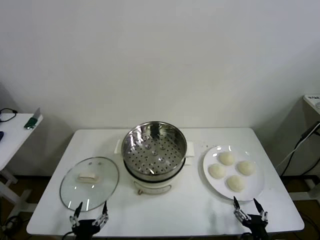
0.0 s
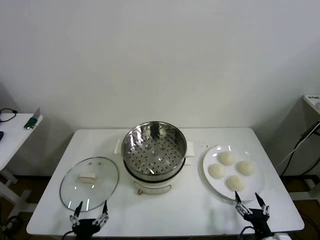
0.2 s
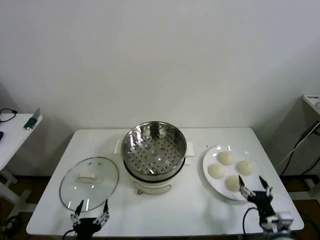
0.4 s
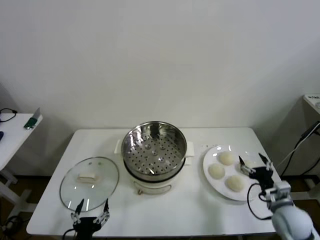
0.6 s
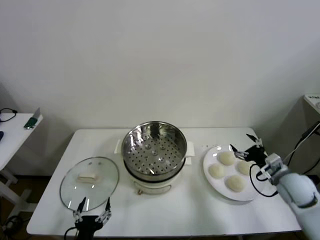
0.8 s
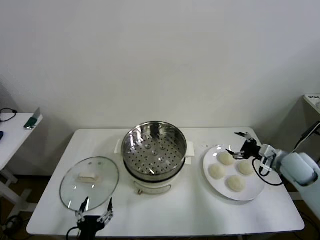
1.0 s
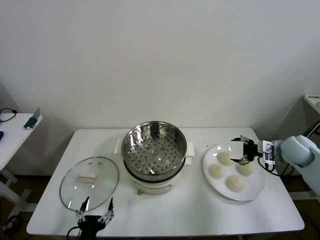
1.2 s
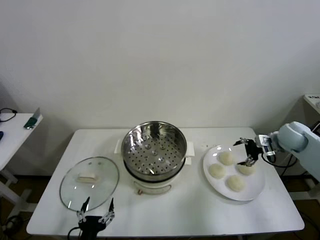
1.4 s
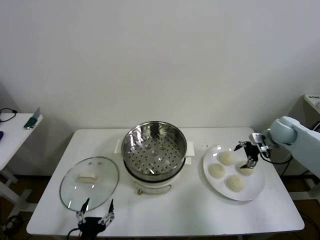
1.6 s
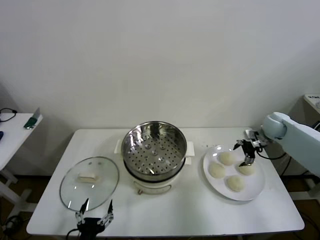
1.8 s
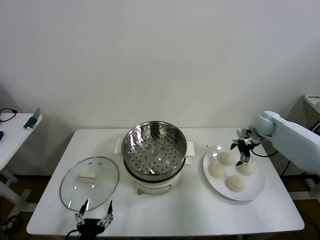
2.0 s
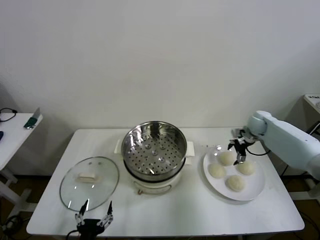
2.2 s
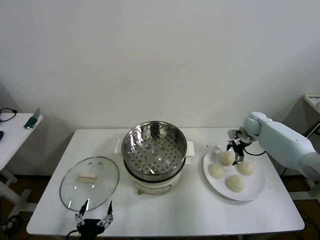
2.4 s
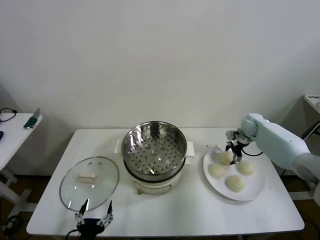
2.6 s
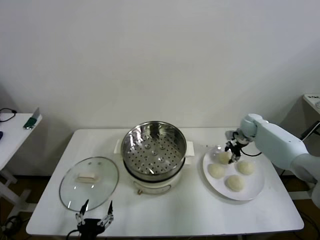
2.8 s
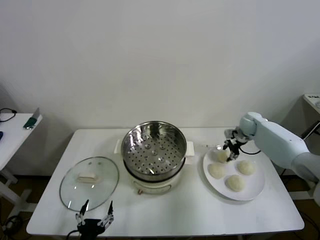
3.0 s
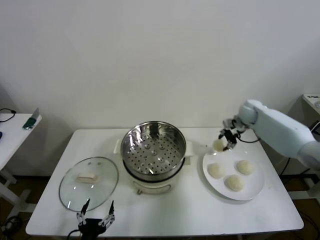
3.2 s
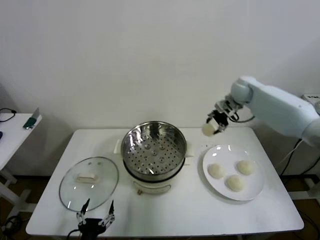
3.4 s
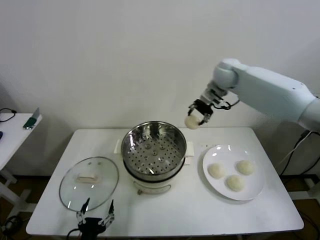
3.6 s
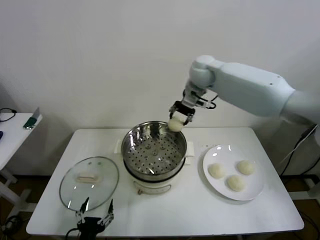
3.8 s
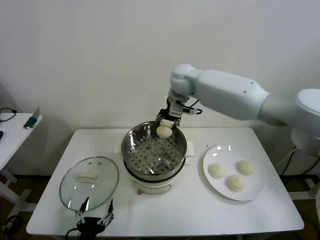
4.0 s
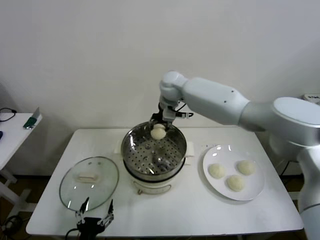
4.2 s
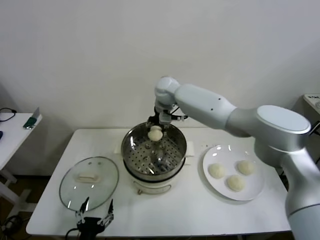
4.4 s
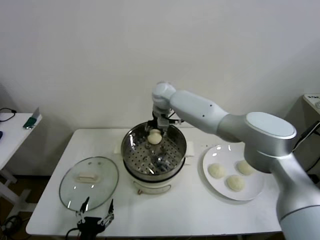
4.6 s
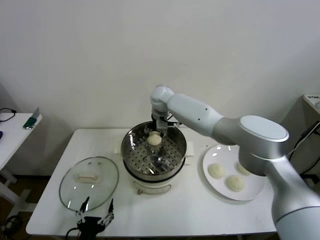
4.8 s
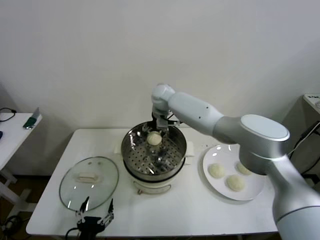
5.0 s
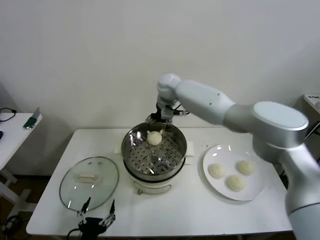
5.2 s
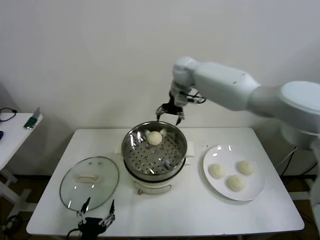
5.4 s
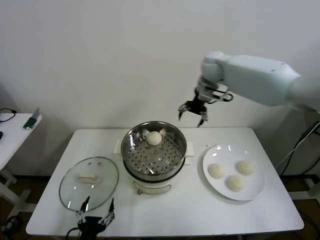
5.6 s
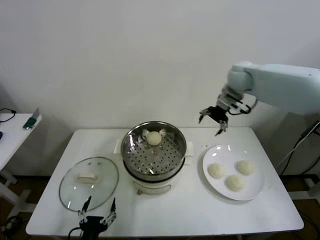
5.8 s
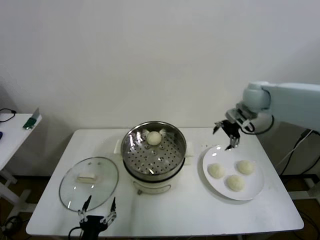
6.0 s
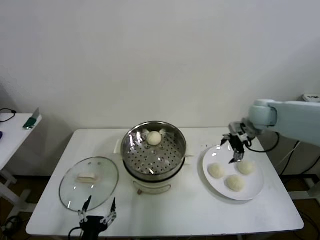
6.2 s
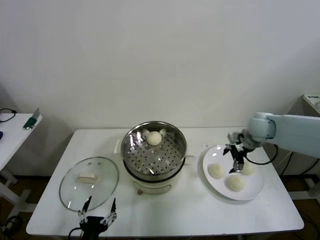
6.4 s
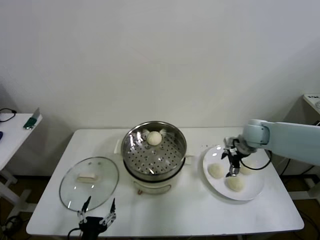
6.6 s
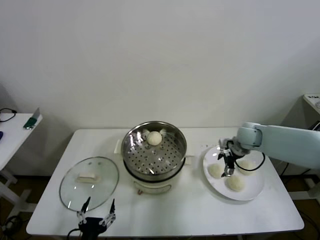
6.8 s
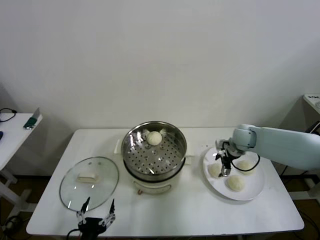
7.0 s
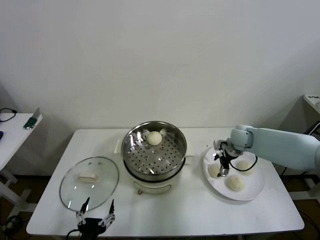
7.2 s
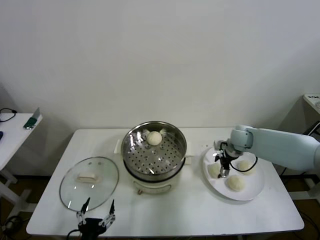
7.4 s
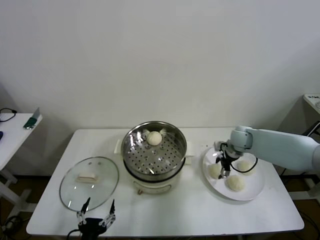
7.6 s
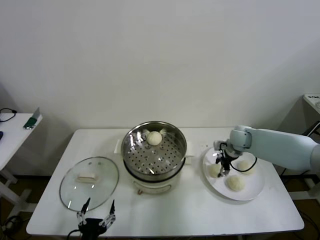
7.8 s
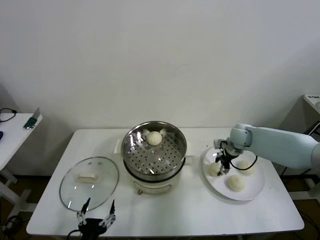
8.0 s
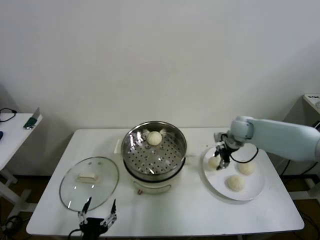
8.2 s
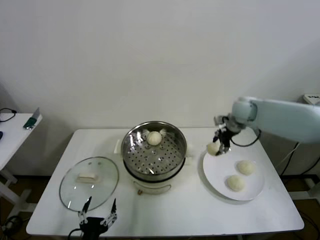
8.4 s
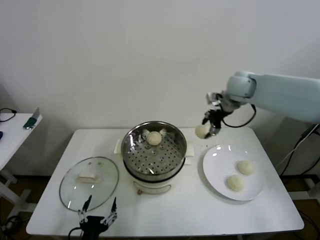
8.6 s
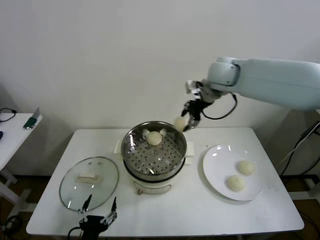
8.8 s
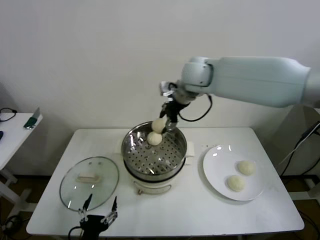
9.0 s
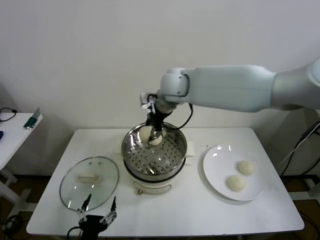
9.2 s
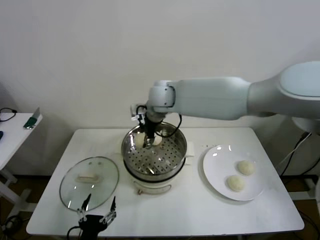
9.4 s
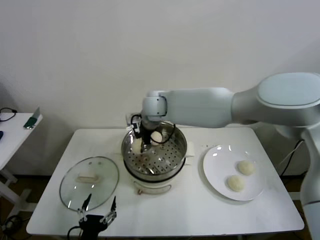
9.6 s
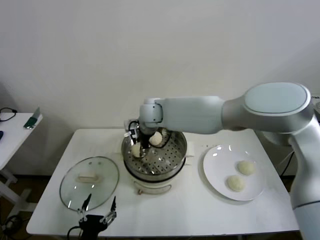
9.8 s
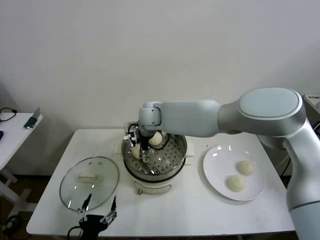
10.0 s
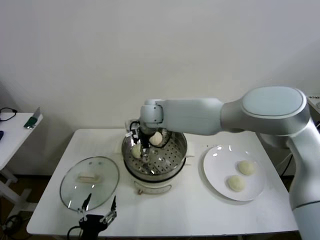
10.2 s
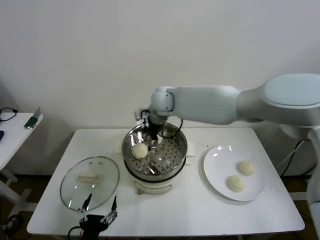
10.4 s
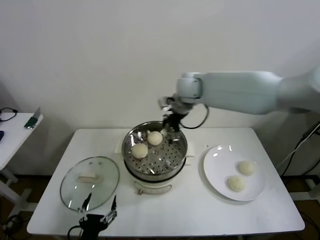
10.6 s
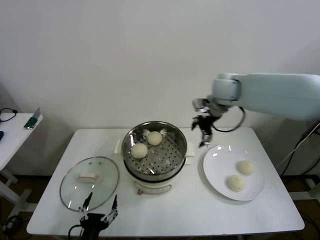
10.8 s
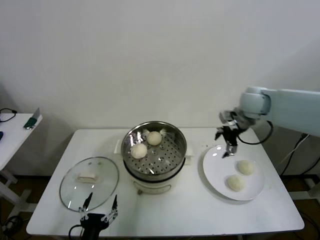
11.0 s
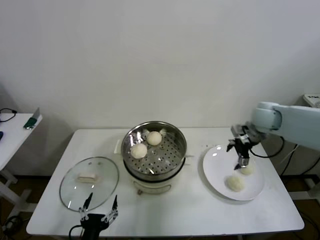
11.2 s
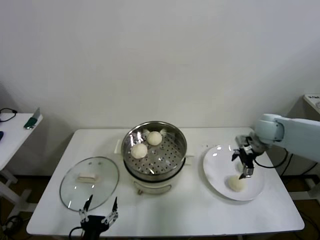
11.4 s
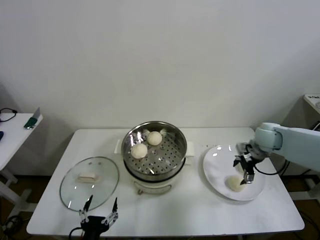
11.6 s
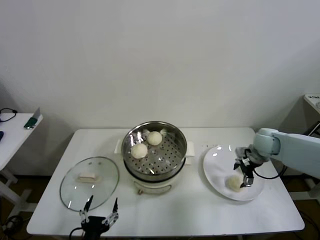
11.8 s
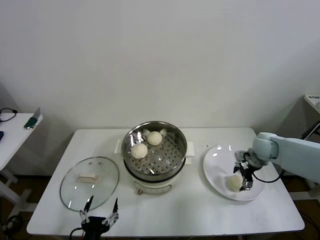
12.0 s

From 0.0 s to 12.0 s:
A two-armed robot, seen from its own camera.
Step, from 0.0 s to 2.8 s: Grasp the baozi in the plate with right gripper.
Step, from 3.0 s to 5.0 s: Place the baozi on the steamer with right gripper.
Step, from 5.2 s to 7.8 s: Grasp the baozi in the plate with right gripper.
Step, from 8.0 s to 10.0 s: Place the baozi on the steamer with right gripper.
From 1.6 s to 3.0 s: The right gripper is displaced forward and to the left by about 10 cm, and closes.
From 3.0 s to 4.4 s: The right gripper moves to the left, approximately 35 cm.
From 4.4 s to 6.0 s: The right gripper heads to the right, covering approximately 30 cm, and opens its fingers.
From 6.0 s to 7.6 s: The right gripper travels downward by some 15 cm.
From 7.6 s to 9.0 s: The right gripper shifts about 35 cm upward and to the left, and closes.
From 9.0 s to 10.4 s: The right gripper travels downward and to the left by about 10 cm, and opens its fingers.
From 10.4 s to 12.0 s: The right gripper shifts some 40 cm to the right and downward.

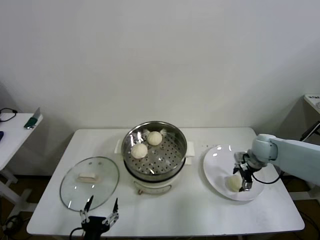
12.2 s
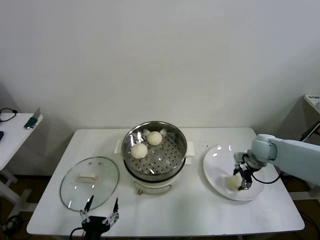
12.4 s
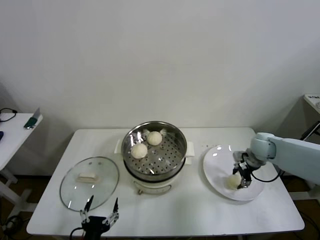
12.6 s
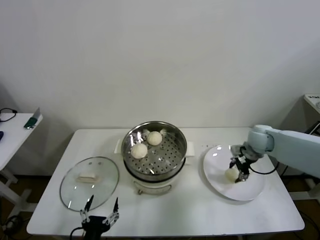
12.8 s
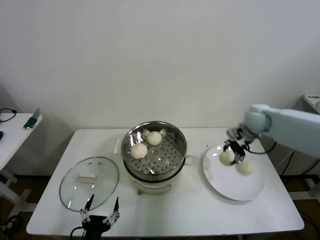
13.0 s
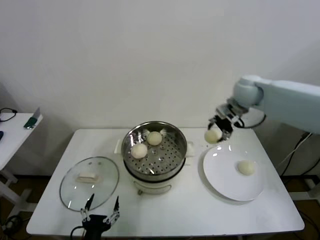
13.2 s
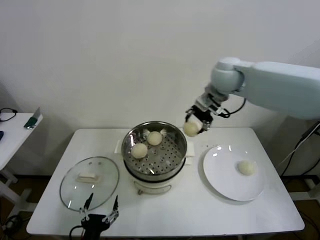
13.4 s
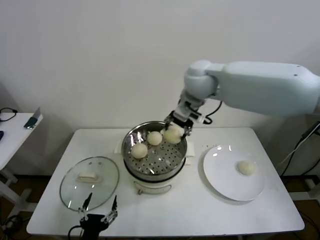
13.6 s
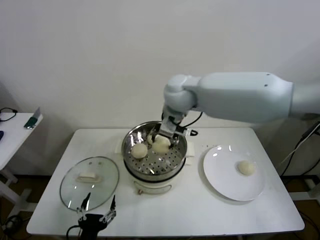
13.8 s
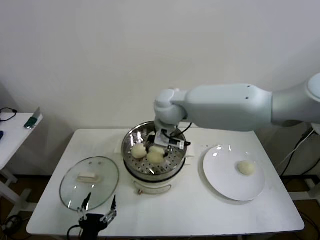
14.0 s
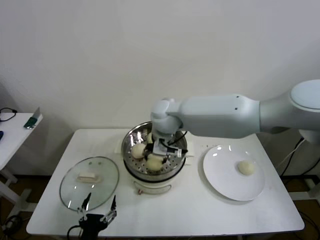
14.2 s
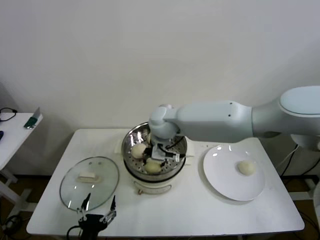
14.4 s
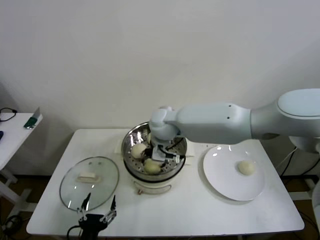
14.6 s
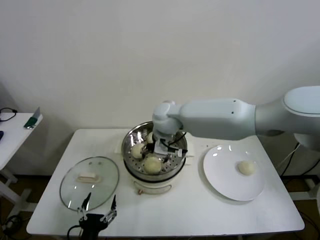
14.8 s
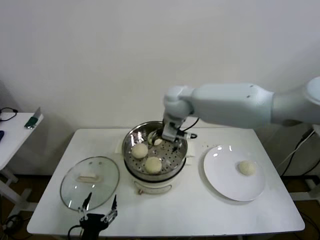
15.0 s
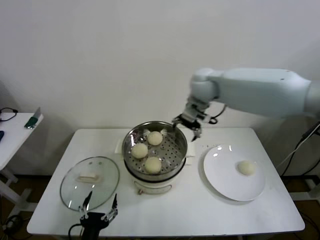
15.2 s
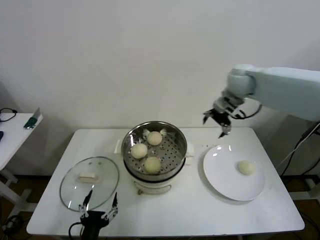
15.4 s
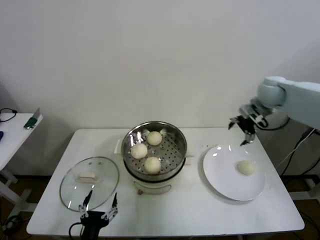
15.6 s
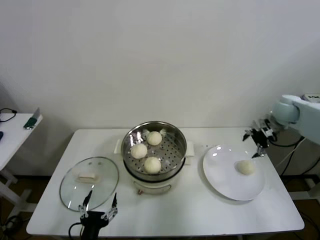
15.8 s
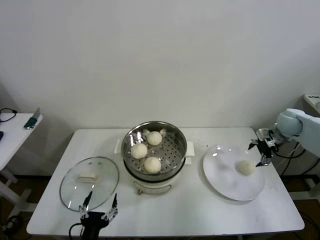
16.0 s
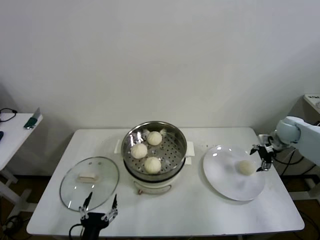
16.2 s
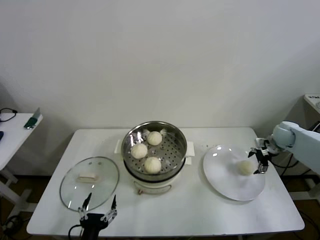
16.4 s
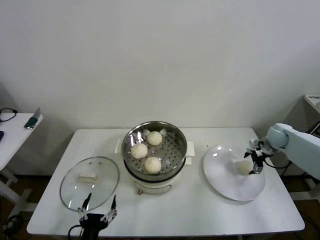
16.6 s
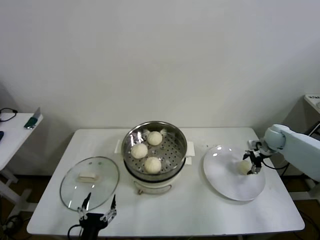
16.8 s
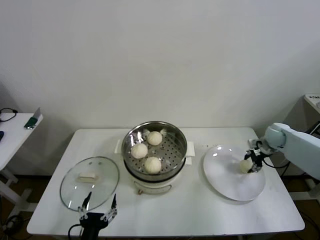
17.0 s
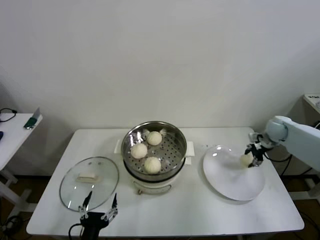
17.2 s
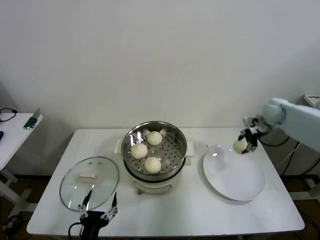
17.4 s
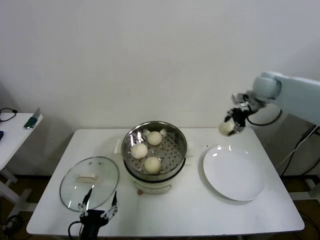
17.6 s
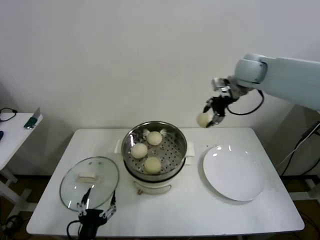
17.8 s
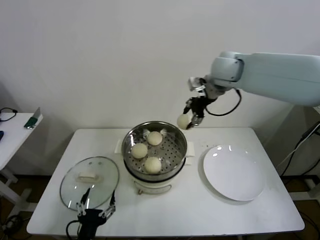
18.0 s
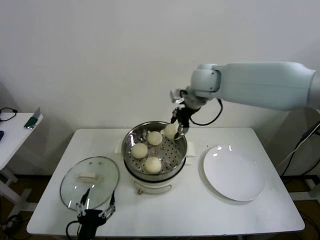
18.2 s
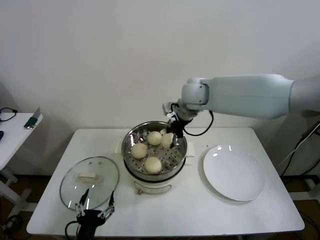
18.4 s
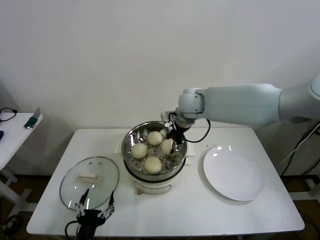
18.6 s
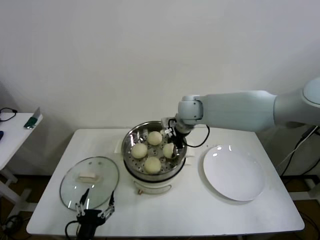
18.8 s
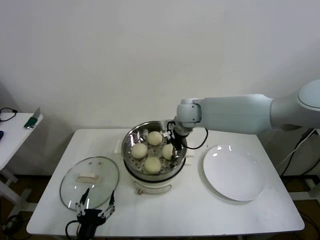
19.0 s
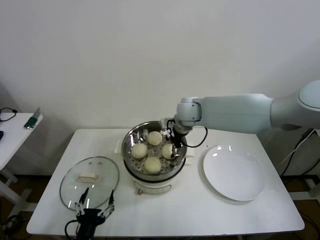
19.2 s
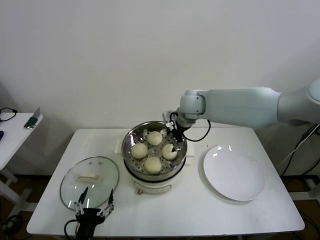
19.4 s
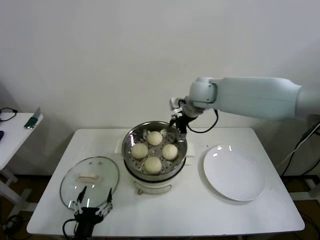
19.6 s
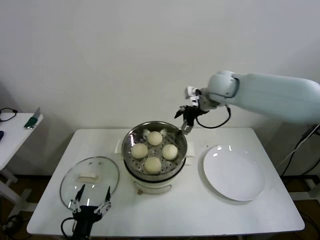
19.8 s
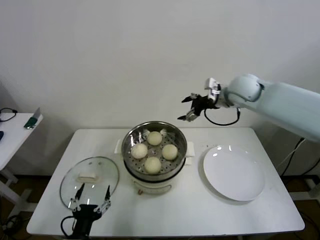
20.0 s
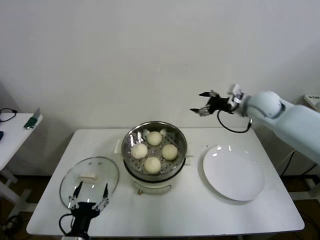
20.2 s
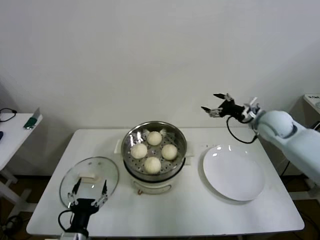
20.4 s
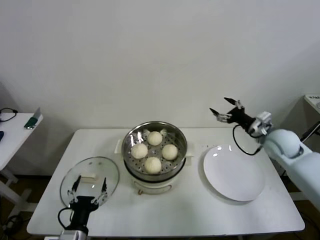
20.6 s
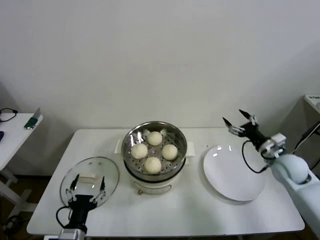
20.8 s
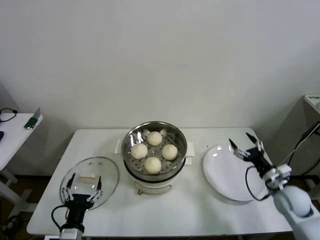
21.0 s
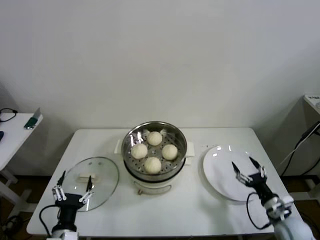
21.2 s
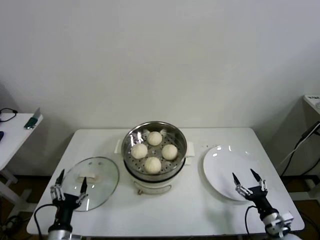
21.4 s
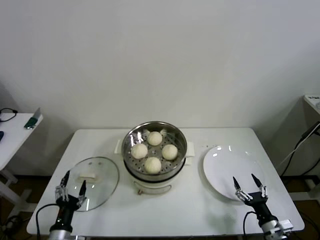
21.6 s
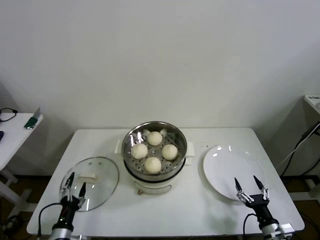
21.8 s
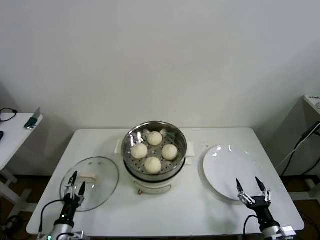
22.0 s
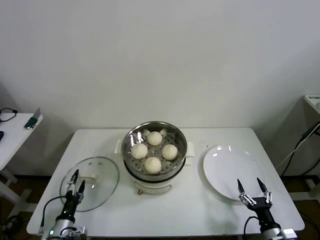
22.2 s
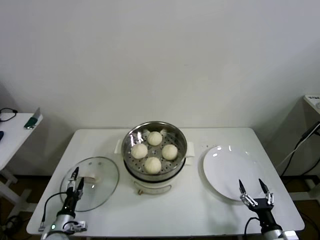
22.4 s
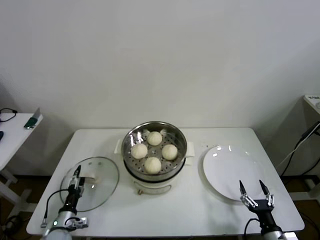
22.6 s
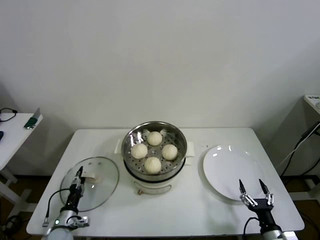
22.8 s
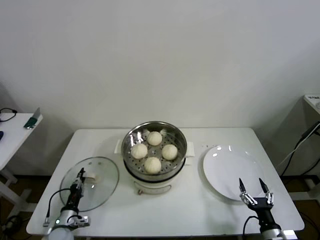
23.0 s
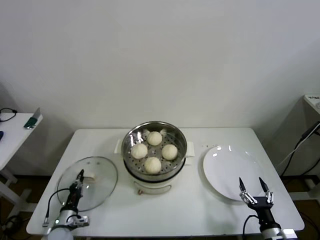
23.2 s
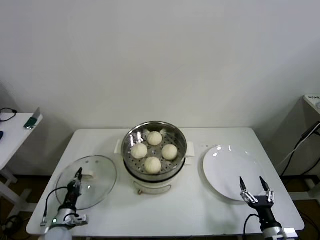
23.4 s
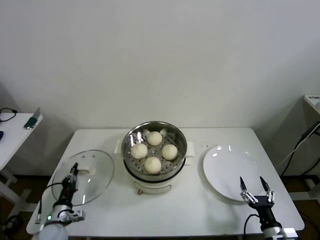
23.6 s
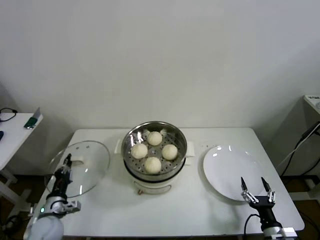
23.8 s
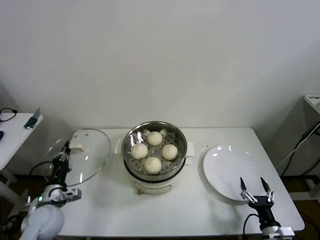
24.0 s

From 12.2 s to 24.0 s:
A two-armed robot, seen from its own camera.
Step, from 12.6 s to 14.6 s: Place the baozi on the steamer with right gripper.
Step, from 14.8 s to 16.8 s: Grasp the baozi in the plate with right gripper.
Step, from 17.0 s to 19.0 s: Place the baozi on the steamer with right gripper.
Step, from 19.2 s to 23.2 s: Grasp the pot lid with left gripper.
From 12.2 s to 13.6 s: The right gripper is displaced to the left and upward by some 40 cm, and closes.
From 13.6 s to 15.2 s: The right gripper travels to the left and back again, some 10 cm each way, and opens its fingers.
From 15.2 s to 16.6 s: The right gripper travels to the right and downward by about 40 cm.
From 16.6 s to 18.2 s: The right gripper travels to the left and upward by roughly 40 cm, and closes up.
From 18.2 s to 19.6 s: The right gripper opens.
From 19.6 s to 21.0 s: The right gripper travels to the right, downward and backward by roughly 50 cm.
From 21.0 s to 22.6 s: The right gripper shifts roughly 20 cm backward and downward, while the left gripper goes approximately 20 cm downward, to the left and forward.
From 22.6 s to 24.0 s: The left gripper shifts approximately 15 cm upward, and closes up.
